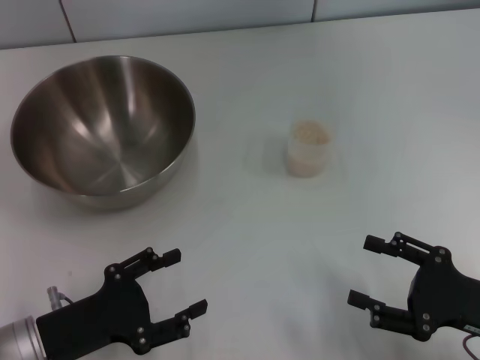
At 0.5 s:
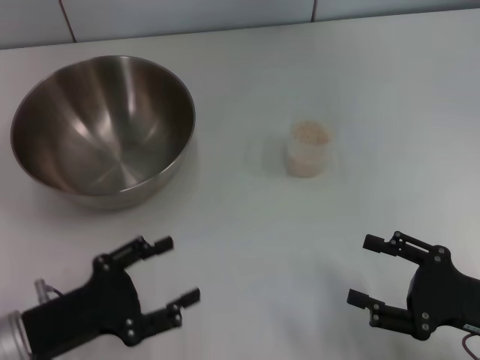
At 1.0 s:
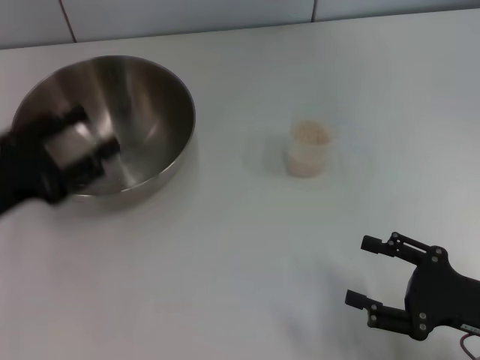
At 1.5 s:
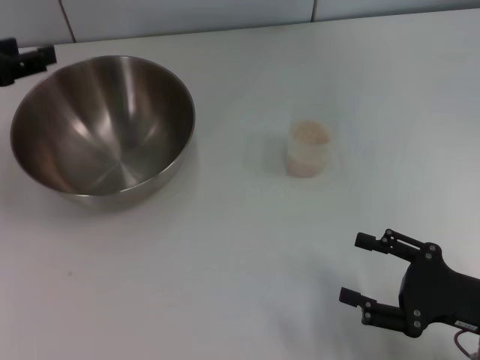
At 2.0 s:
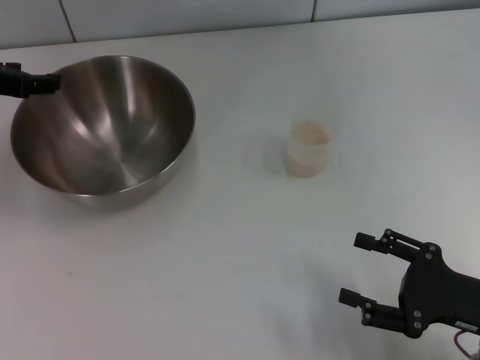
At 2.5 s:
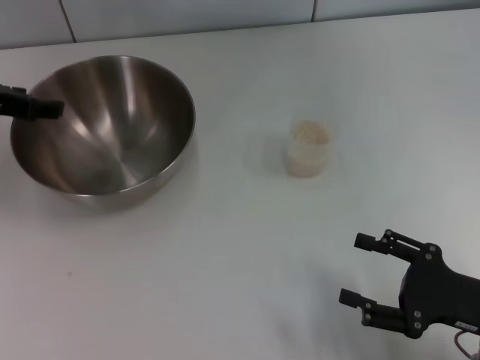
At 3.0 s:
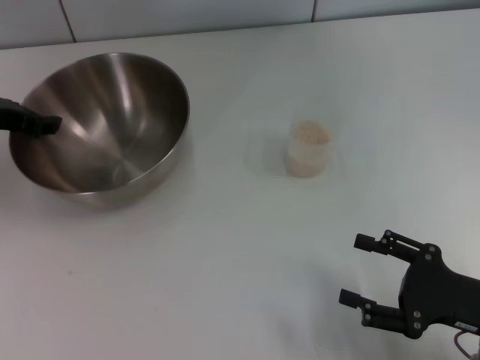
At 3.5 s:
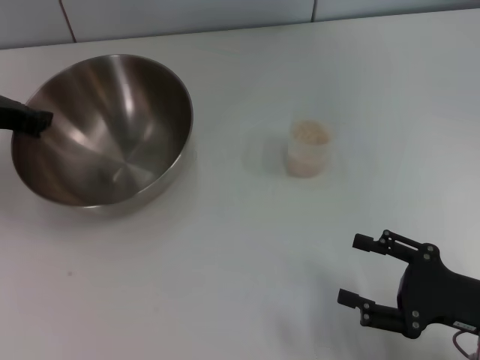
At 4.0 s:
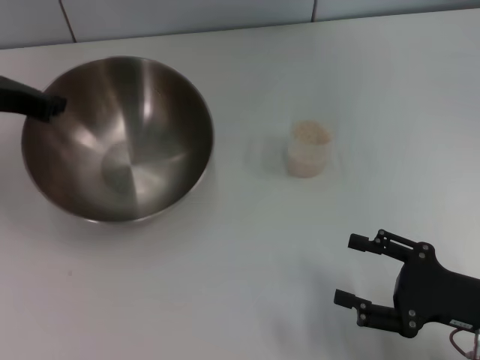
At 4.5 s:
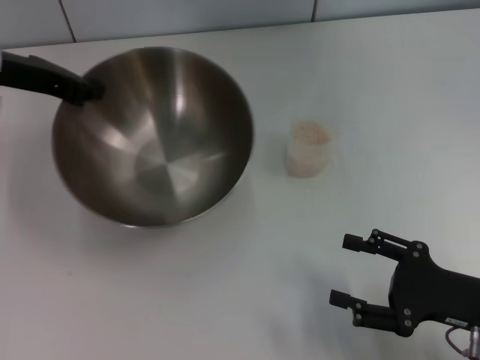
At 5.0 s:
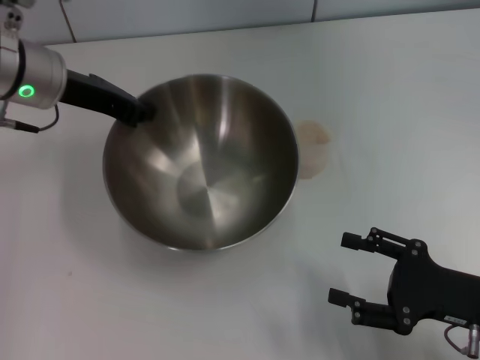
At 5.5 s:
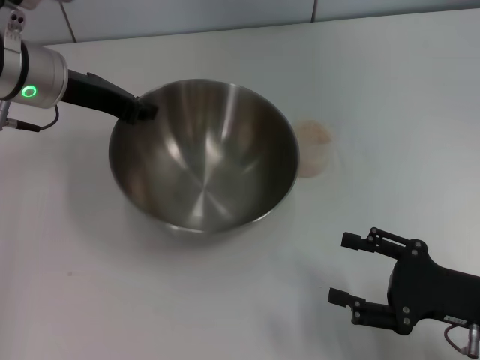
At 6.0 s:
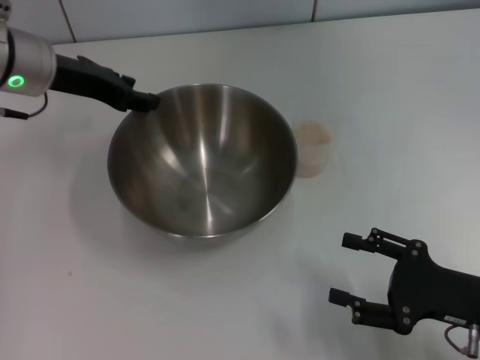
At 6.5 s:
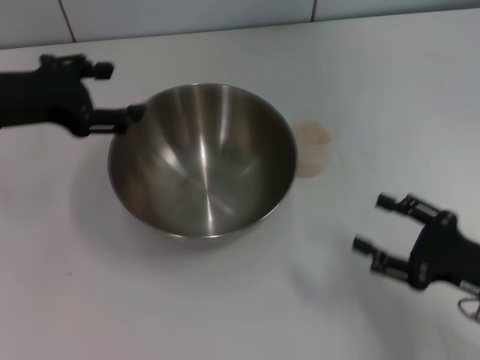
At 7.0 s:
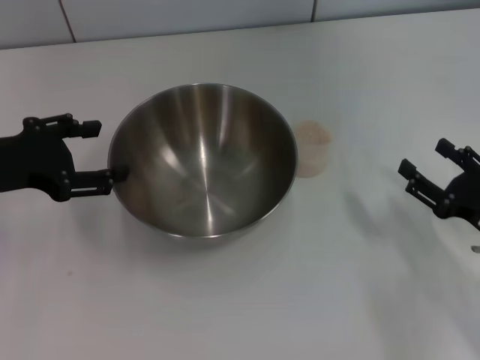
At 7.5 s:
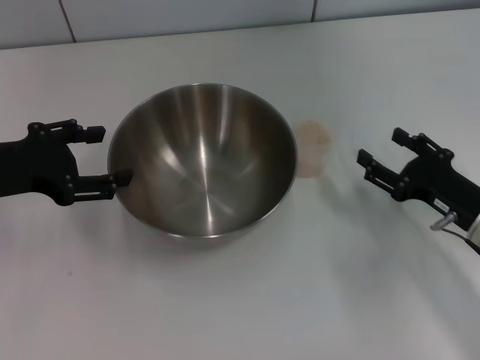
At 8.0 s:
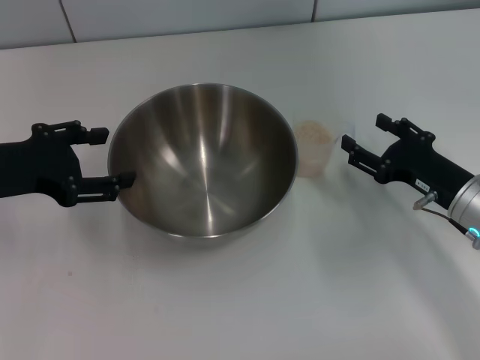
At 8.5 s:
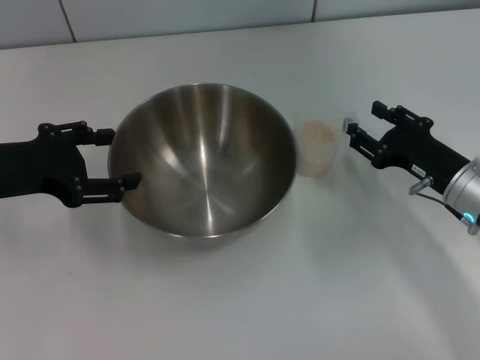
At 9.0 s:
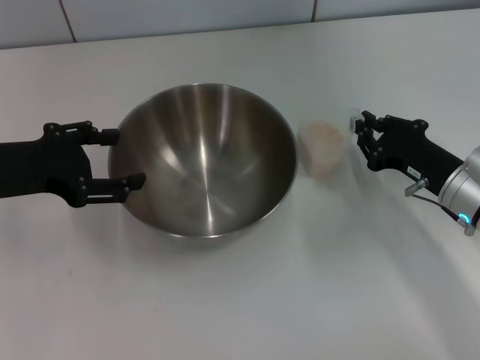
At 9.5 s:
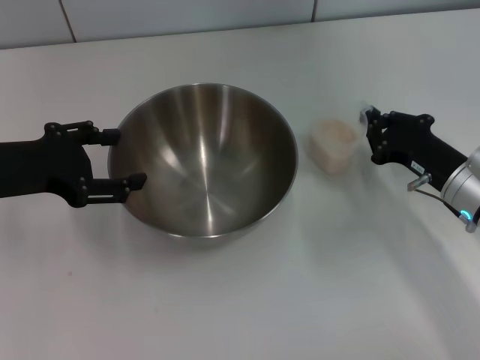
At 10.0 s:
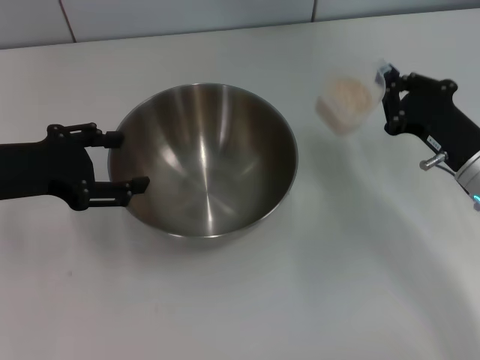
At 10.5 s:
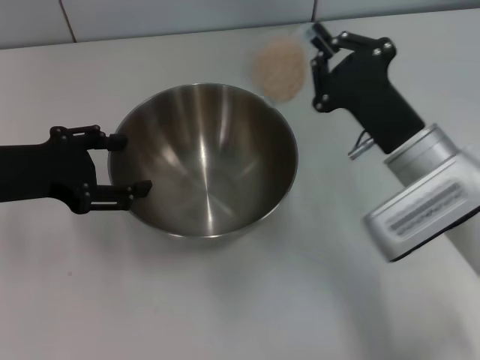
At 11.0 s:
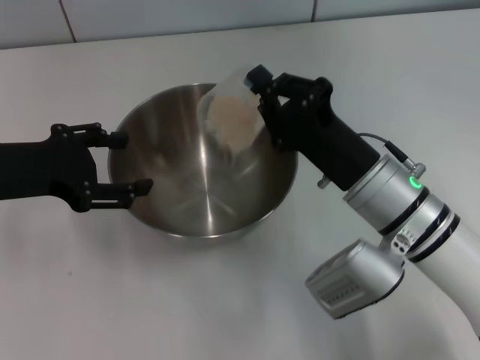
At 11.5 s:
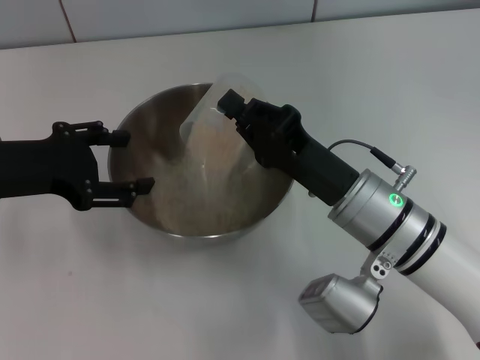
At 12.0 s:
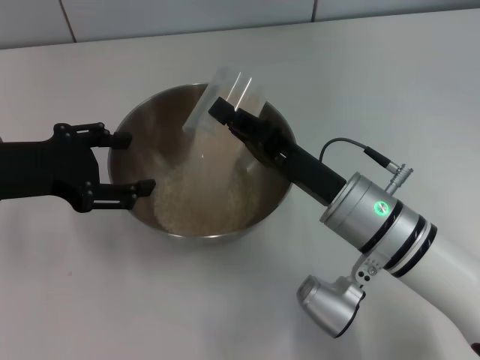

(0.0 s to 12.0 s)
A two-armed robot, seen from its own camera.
Task of the whole recording: Place the bowl in the middle of the table with one hand and pour the rice from the grain cup into it with the other hand.
Step, 0.0 s - 4.0 s: Pick up the bowl with the left gripper.
Step, 4.5 s - 6.0 s: Place the bowl in the center of view with the left gripper.
Step, 6.5 s - 9.5 s: Pick up the cup with rice in it with the right gripper.
0.0 s - 2.0 s: The left gripper heads forward and upward, covering roughly 25 cm.
2.0 s - 4.0 s: The left gripper closes up.
4.0 s - 6.0 s: The left gripper travels to the right by some 5 cm, and opens.
6.0 s - 8.0 s: The left gripper goes some 15 cm backward and to the left, and opens its fingers; the right gripper heads forward, covering approximately 10 cm.
8.0 s - 10.0 s: The right gripper closes up.
10.0 s - 12.0 s: The right gripper heads to the left, covering some 15 cm.

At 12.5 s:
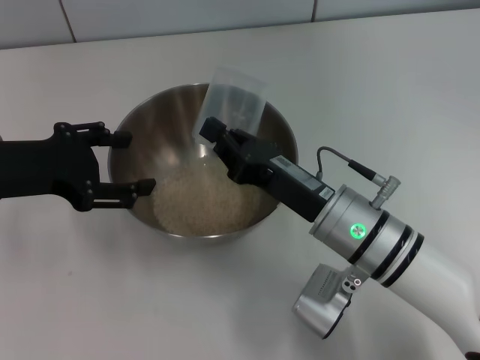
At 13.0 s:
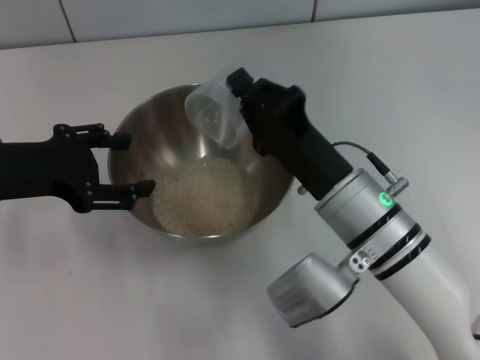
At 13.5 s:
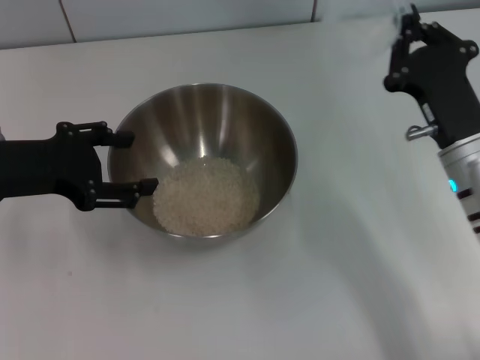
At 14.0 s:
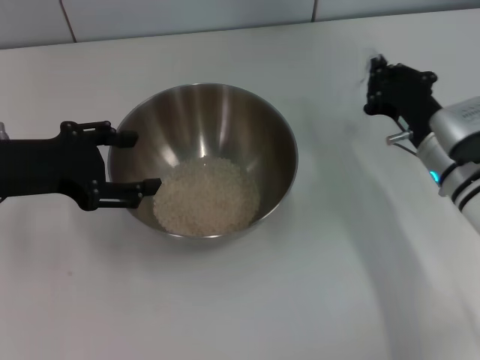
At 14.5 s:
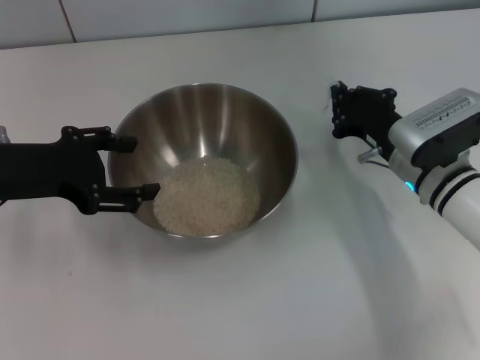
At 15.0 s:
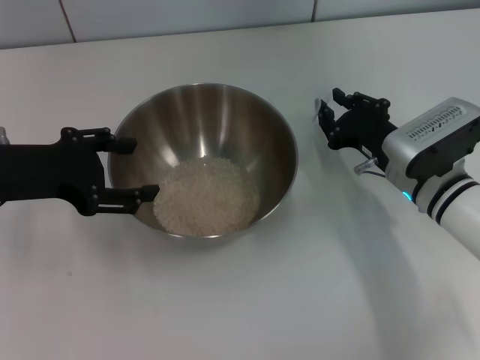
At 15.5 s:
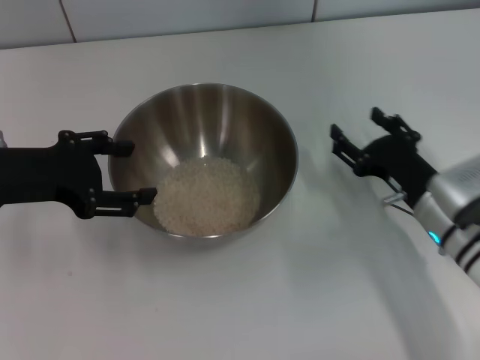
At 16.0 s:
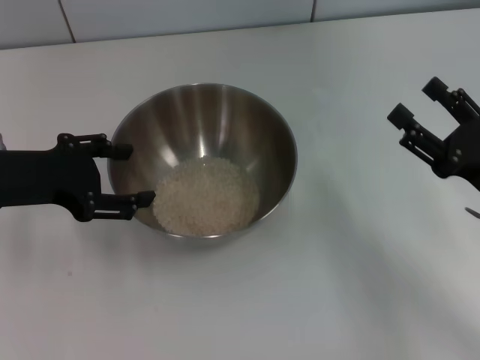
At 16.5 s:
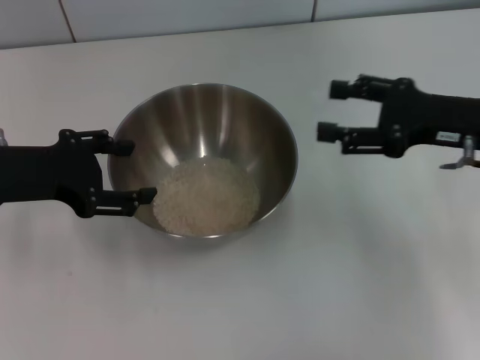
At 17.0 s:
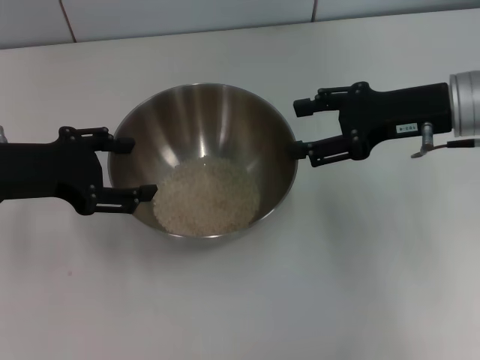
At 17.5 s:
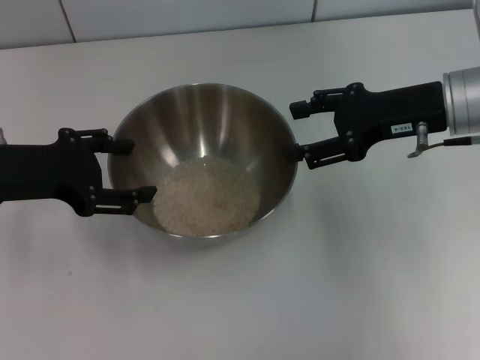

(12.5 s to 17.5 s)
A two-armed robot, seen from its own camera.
Task of the whole recording: Place the bowl in the middle of the table with one hand and pour the rice from the grain cup into it with the other hand.
Step, 13.5 s - 15.0 s: Place the cup on the table with the right gripper.
12.5 s - 15.0 s: The right gripper heads to the right and forward, covering some 10 cm.
15.0 s - 17.5 s: The right gripper moves upward, about 15 cm, and opens.

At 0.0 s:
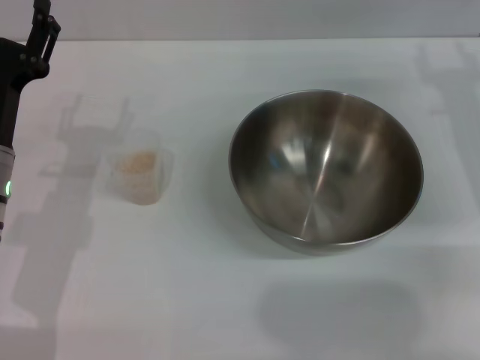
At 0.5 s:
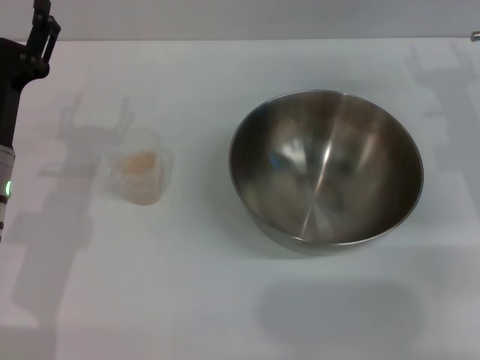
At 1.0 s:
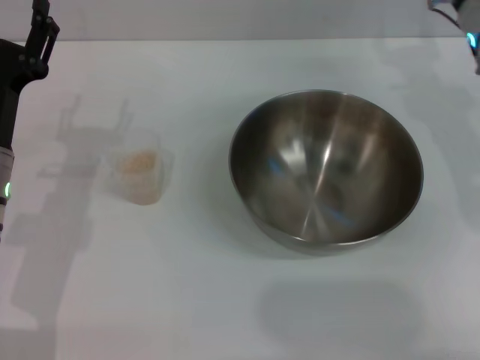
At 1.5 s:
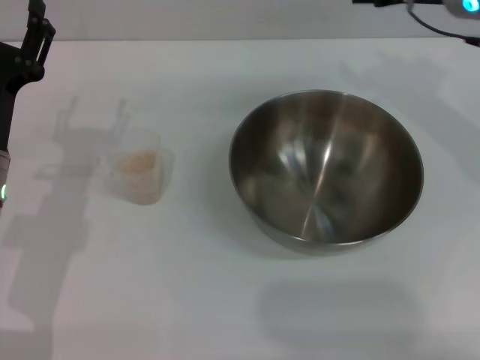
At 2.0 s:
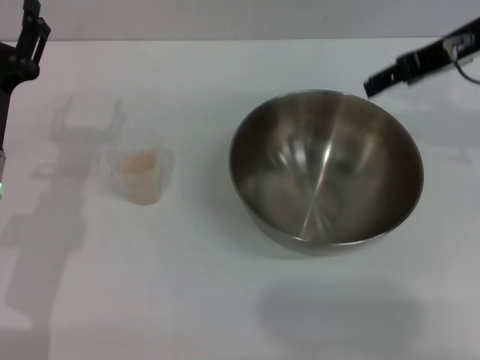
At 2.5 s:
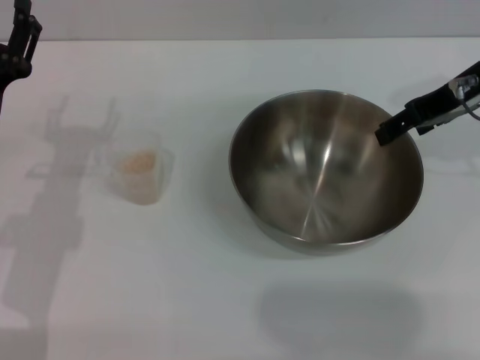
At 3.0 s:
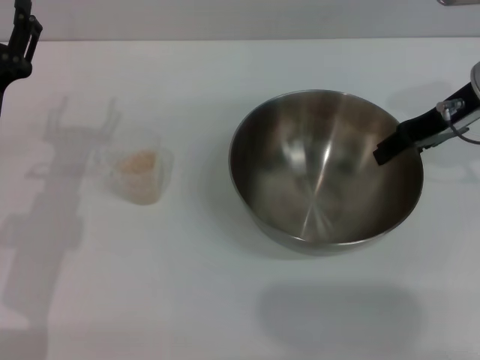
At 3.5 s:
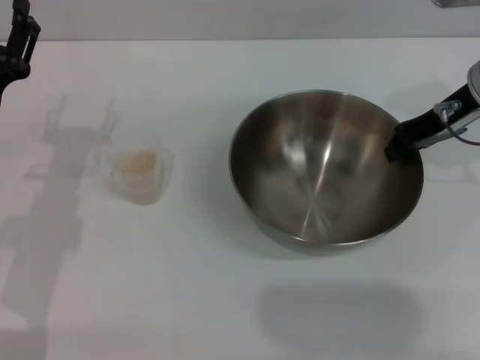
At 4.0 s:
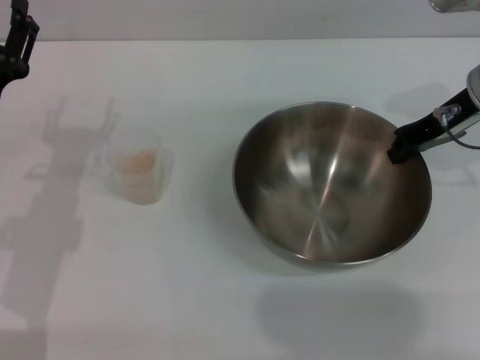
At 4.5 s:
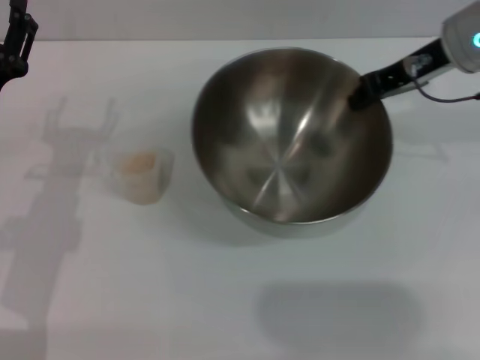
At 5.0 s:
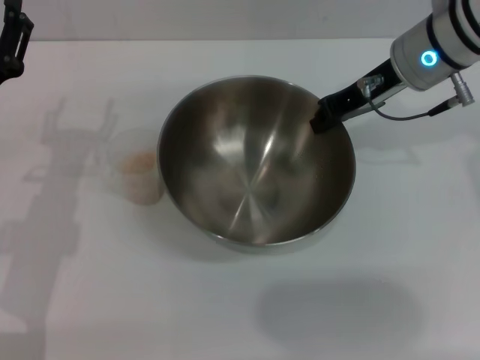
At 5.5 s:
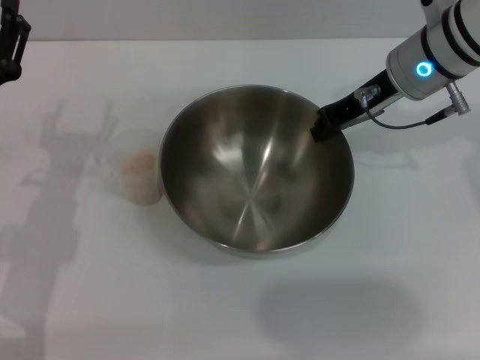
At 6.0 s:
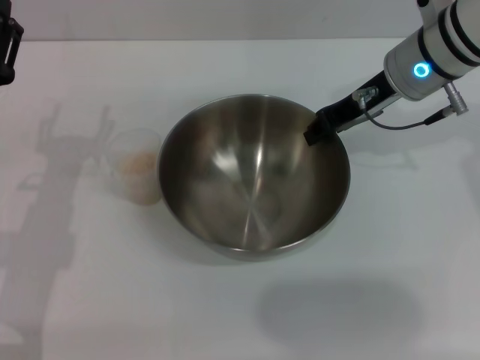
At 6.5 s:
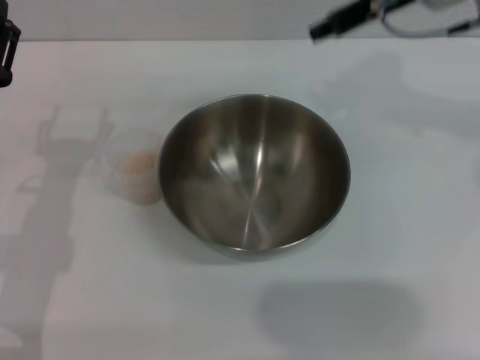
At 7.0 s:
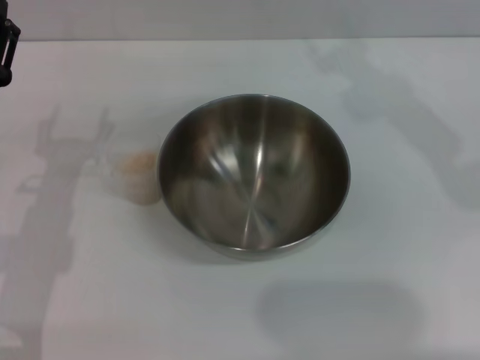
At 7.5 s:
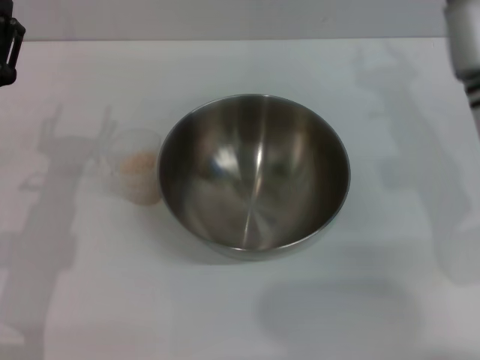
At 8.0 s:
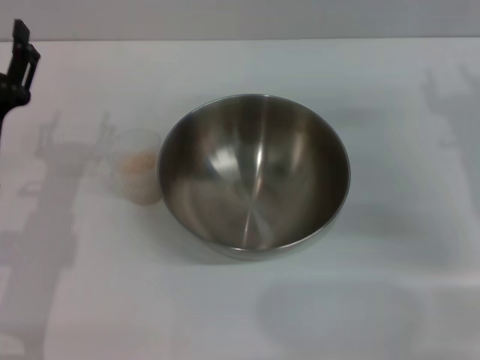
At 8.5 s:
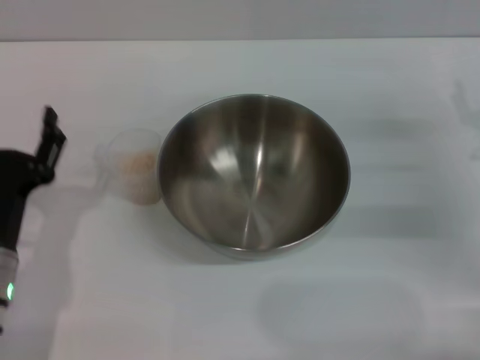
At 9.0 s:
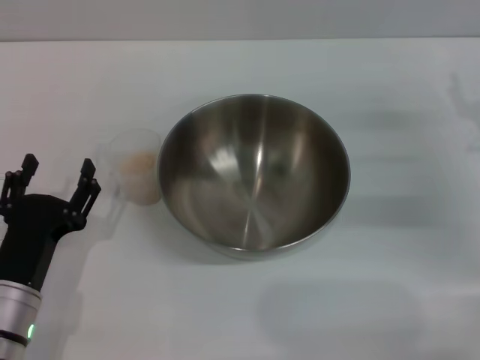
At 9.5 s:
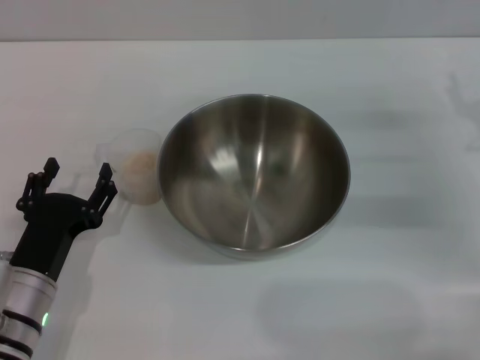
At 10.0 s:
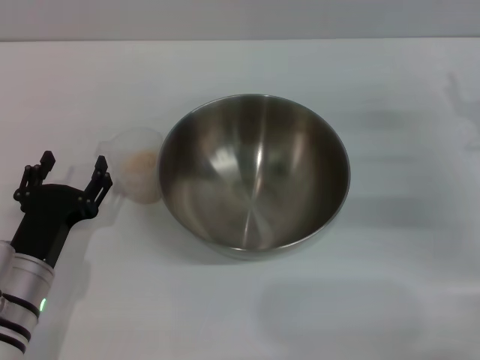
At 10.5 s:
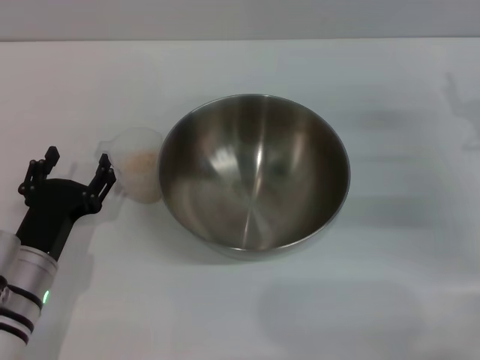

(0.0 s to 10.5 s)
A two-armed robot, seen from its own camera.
Task of the whole recording: Place the bowl in the middle of the table with one hand and pour the rice from the grain cup into it with the other hand.
Step, 0.0 s - 4.0 s: Pick up the bowl with the right gripper.
Step, 4.5 s - 6.0 s: Place the bowl in the center of view with the right gripper.
0.0 s - 2.0 s: The right gripper shifts roughly 15 cm upward.
2.0 s - 4.0 s: The right gripper shifts roughly 5 cm downward, and closes its fingers.
4.0 s - 6.5 s: The right gripper shifts some 10 cm upward and to the left, and opens.
6.5 s - 8.5 s: The left gripper travels backward and downward by roughly 10 cm. The right gripper goes about 25 cm downward, to the right and backward, and opens up.
8.5 s - 10.5 s: There are only small adjustments of the grippers.
